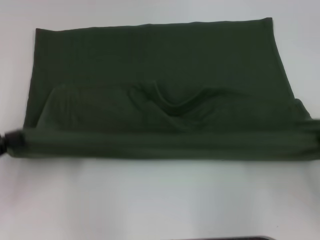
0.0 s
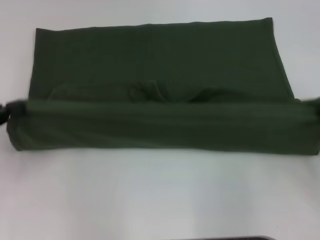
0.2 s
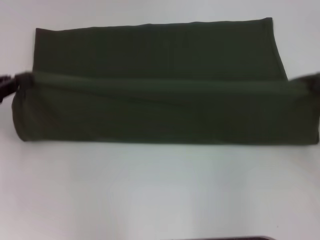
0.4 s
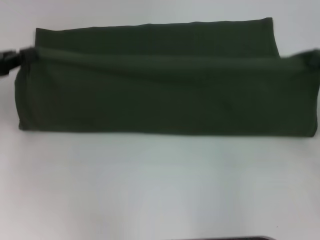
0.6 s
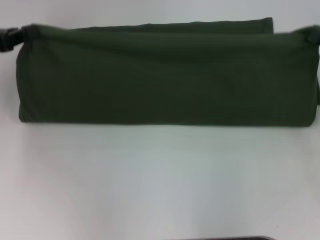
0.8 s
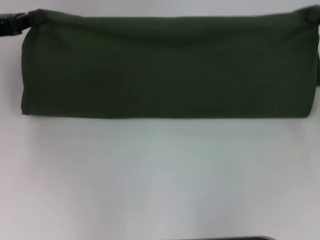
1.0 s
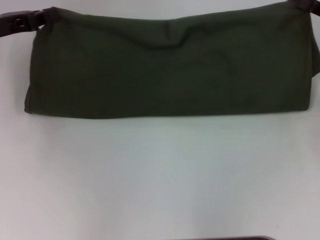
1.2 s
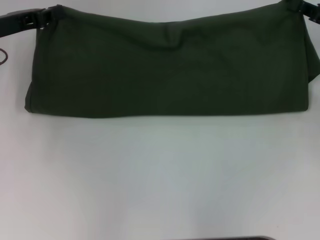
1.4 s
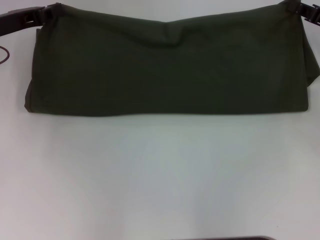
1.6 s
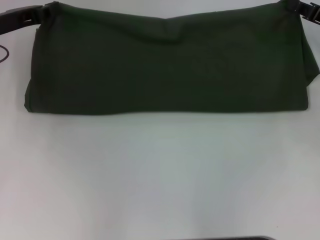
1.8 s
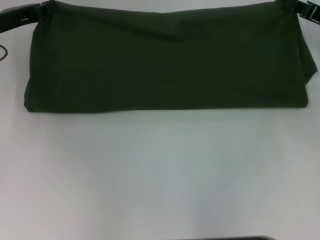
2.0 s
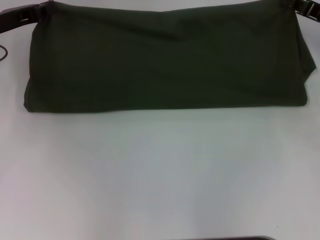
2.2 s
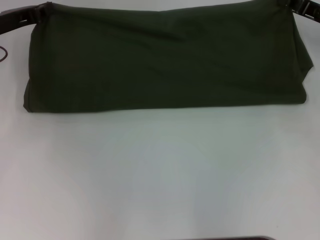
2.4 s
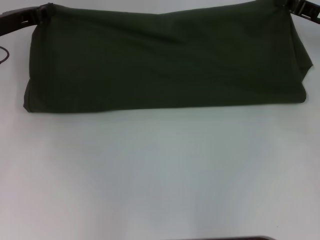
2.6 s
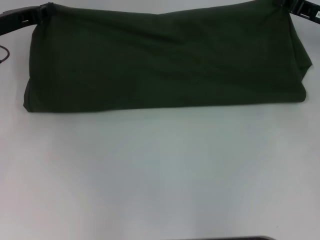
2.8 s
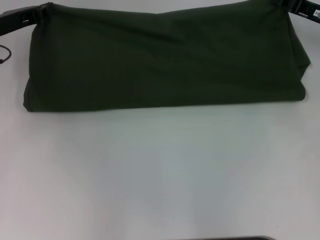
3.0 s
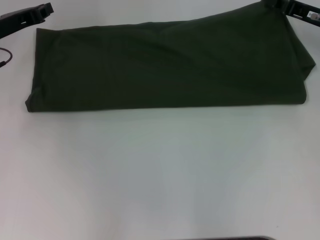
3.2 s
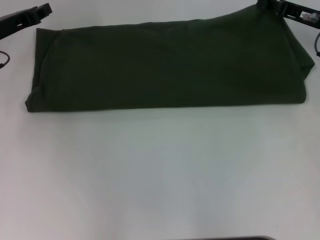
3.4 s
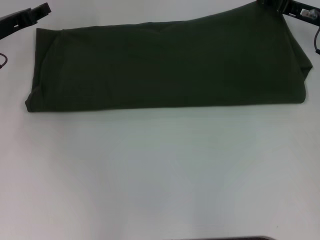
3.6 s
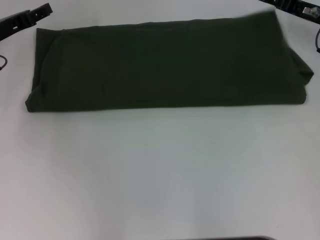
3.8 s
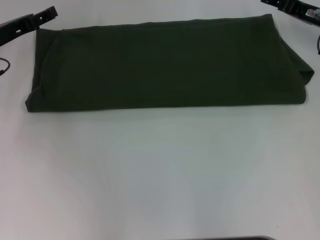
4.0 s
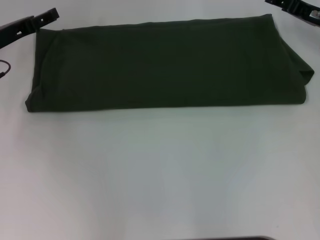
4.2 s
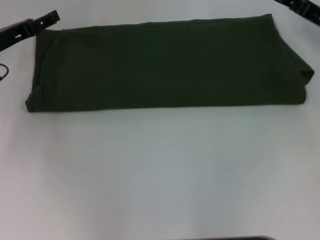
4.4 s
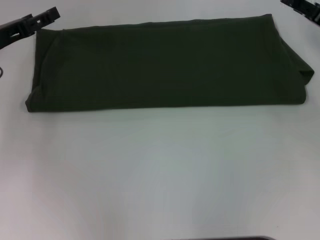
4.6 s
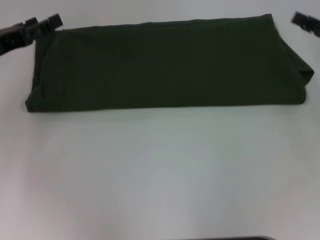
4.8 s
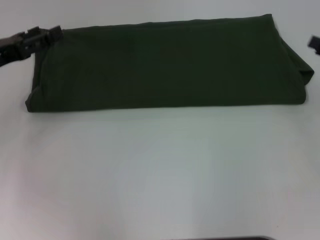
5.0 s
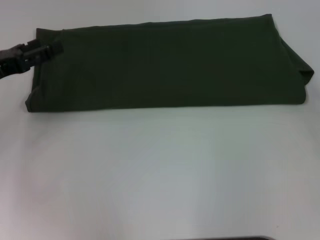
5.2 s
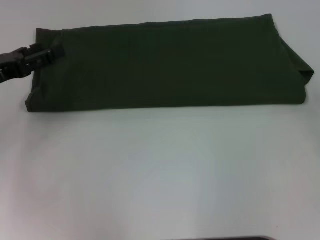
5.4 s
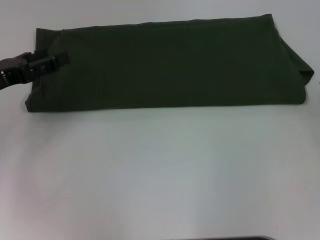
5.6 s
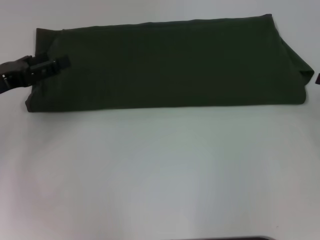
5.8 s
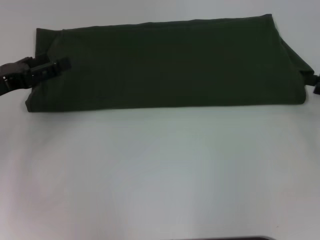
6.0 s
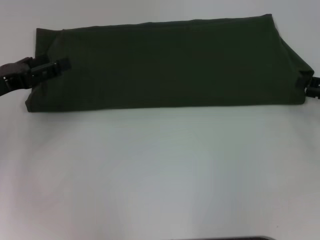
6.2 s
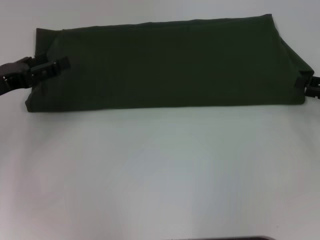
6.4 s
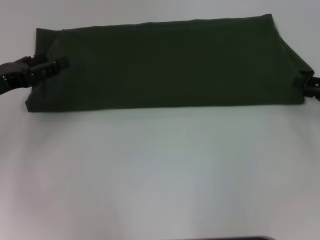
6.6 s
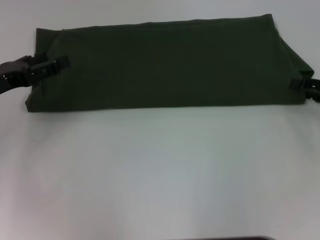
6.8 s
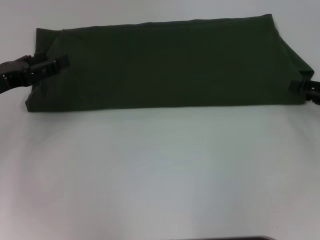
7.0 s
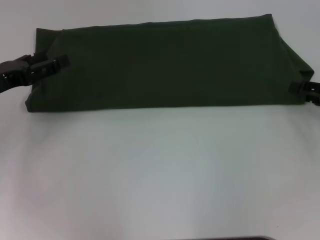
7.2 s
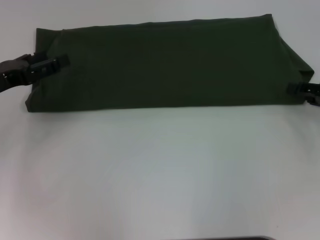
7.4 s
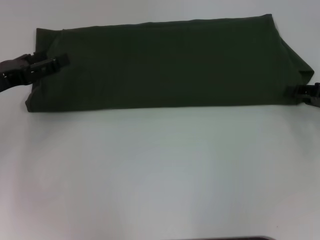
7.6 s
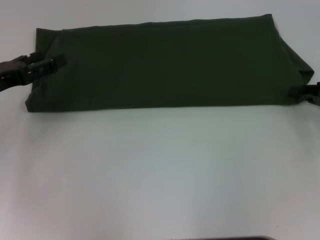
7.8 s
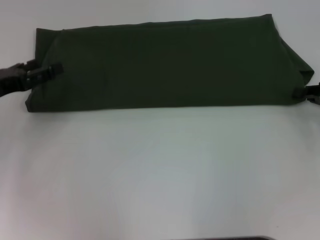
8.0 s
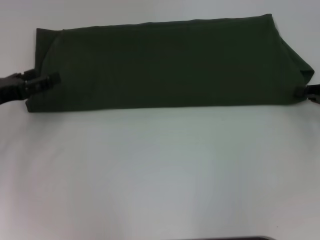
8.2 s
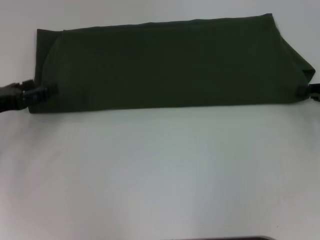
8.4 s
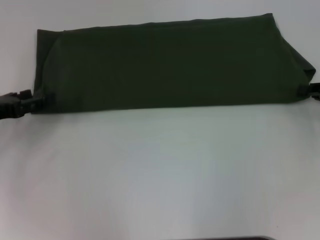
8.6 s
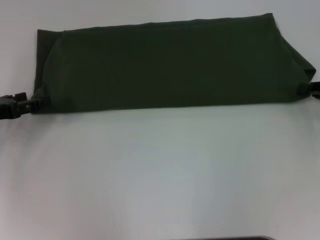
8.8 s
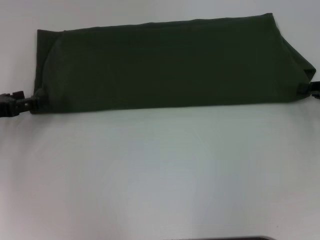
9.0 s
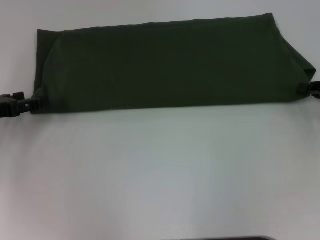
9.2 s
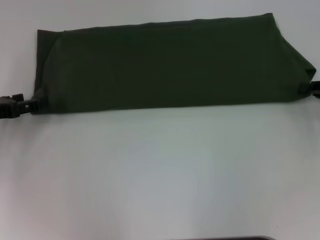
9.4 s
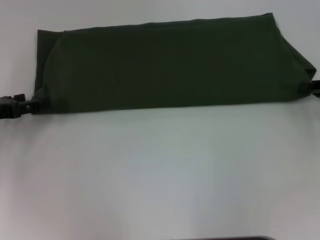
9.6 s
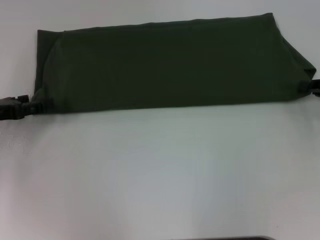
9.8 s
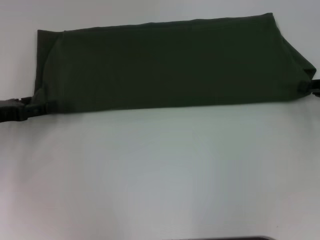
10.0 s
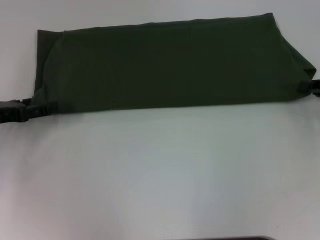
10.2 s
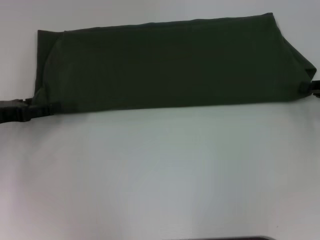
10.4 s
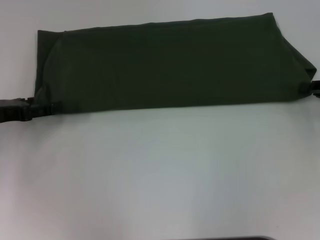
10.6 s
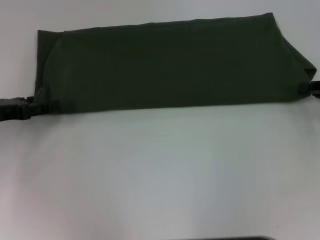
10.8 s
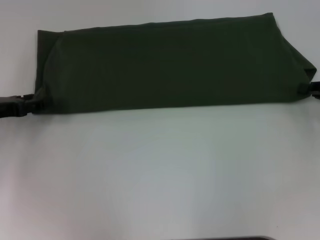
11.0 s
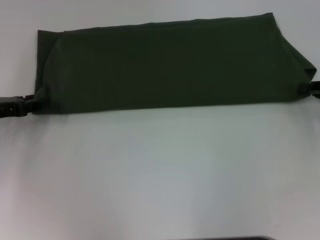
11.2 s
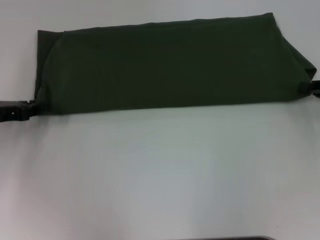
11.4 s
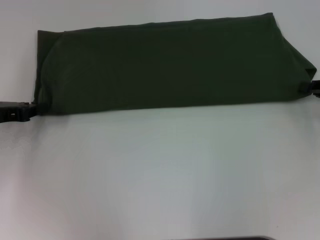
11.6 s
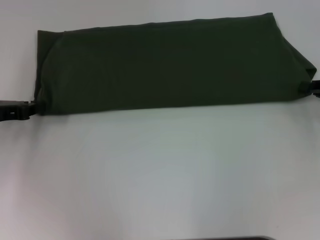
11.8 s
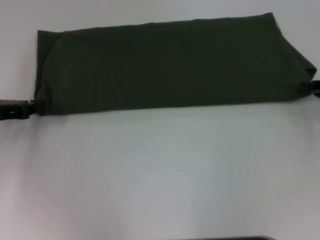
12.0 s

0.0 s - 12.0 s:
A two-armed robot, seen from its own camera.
Step, 0.0 s - 3.2 s: Fold the clothes with your left hand.
Step, 3.4 s - 3.8 s: Fold the clothes with your right hand.
0.0 s - 1.6 s: The right gripper goes about 20 cm forward; the left gripper heads forward and to the right, covering approximately 20 cm.
1.6 s - 3.0 s: The grippers move only a little.
3.0 s - 4.4 s: The right gripper opens its fingers; the left gripper opens up.
4.4 s - 6.0 s: The left gripper is displaced backward by roughly 10 cm; the right gripper moves backward and to the right, some 15 cm.
6.0 s - 7.6 s: The grippers make only small movements.
7.6 s - 9.0 s: The right gripper closes.
9.0 s - 10.4 s: The grippers stay close to where they were, moving slightly.

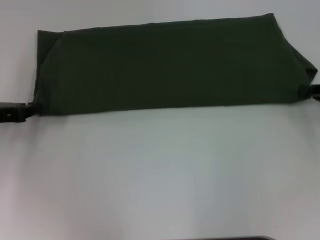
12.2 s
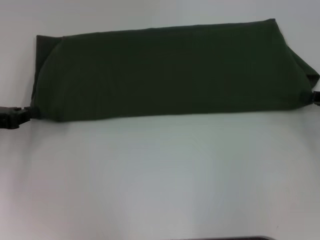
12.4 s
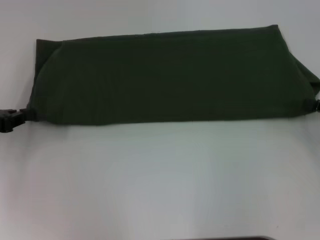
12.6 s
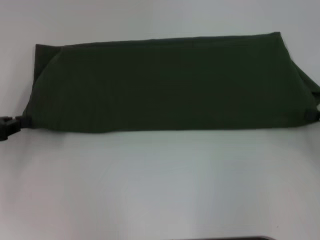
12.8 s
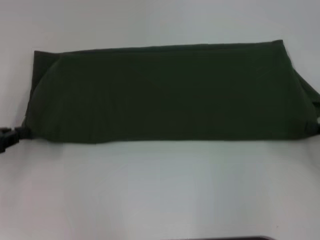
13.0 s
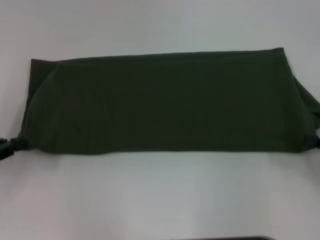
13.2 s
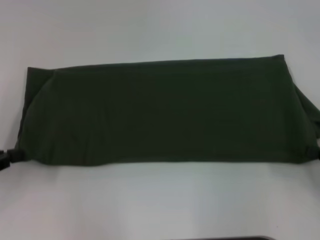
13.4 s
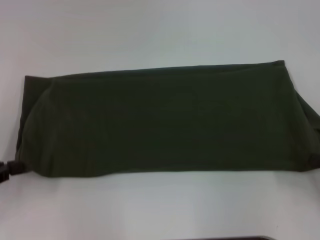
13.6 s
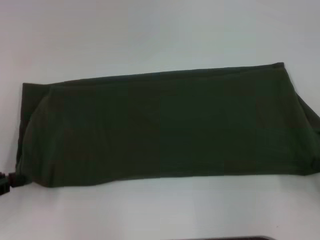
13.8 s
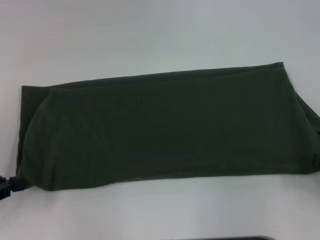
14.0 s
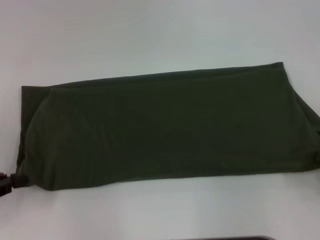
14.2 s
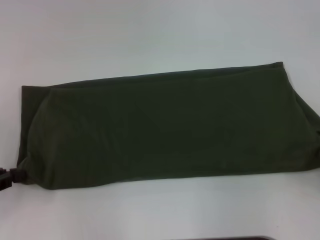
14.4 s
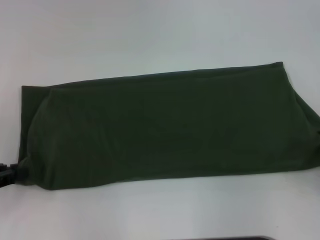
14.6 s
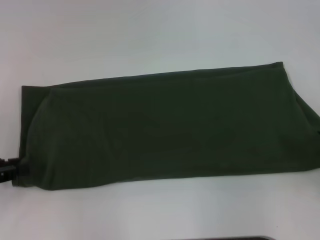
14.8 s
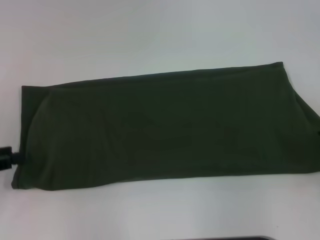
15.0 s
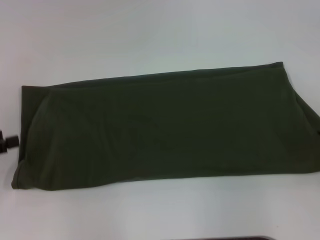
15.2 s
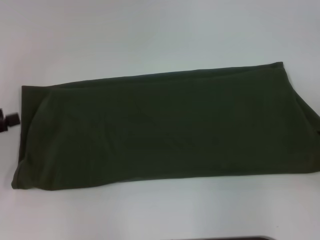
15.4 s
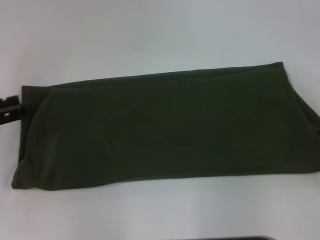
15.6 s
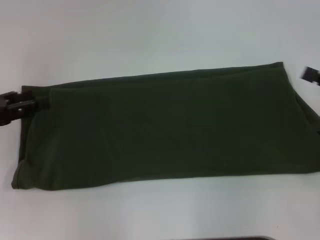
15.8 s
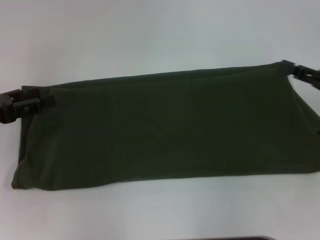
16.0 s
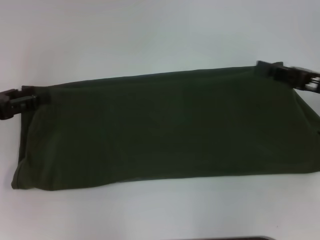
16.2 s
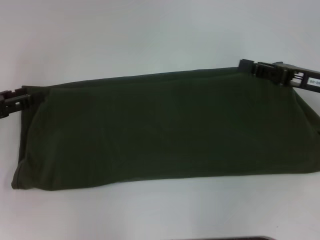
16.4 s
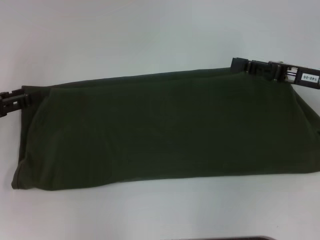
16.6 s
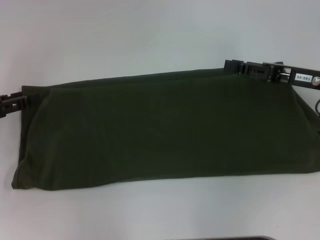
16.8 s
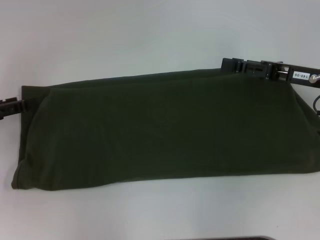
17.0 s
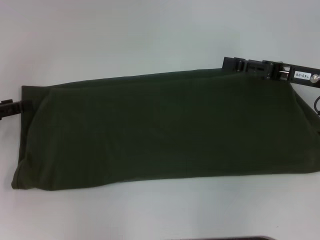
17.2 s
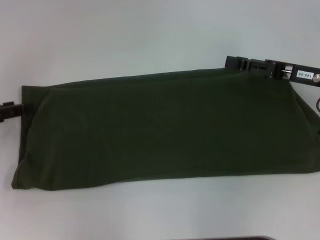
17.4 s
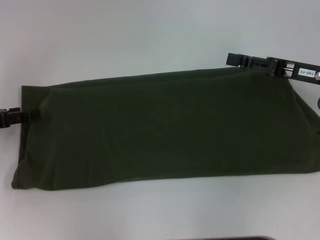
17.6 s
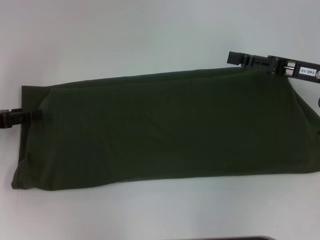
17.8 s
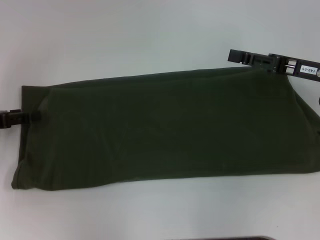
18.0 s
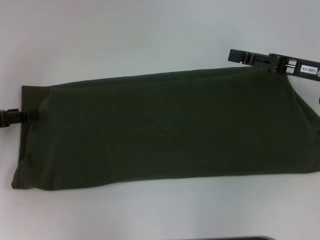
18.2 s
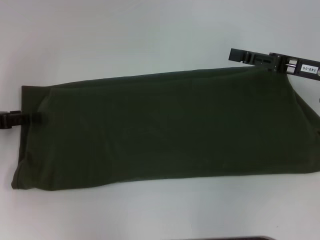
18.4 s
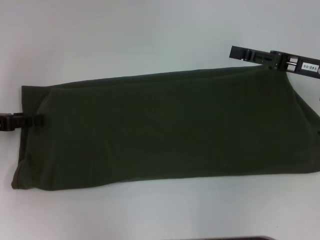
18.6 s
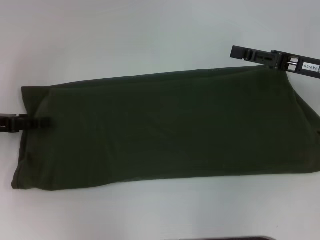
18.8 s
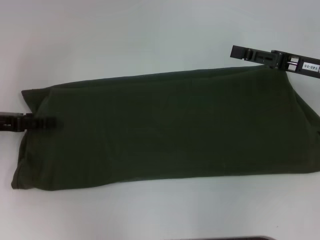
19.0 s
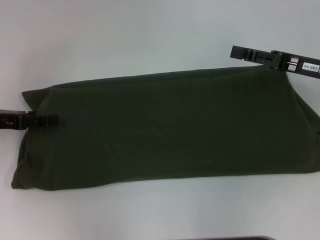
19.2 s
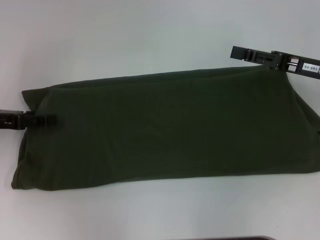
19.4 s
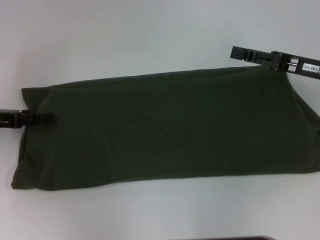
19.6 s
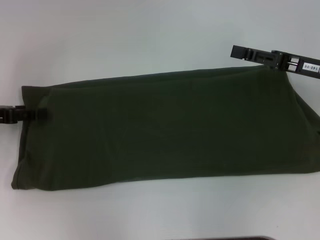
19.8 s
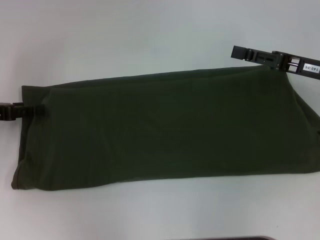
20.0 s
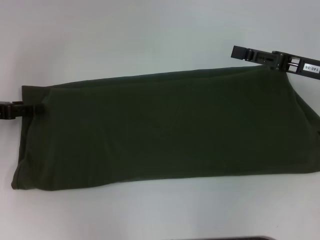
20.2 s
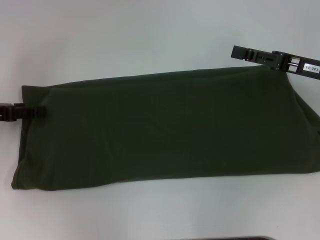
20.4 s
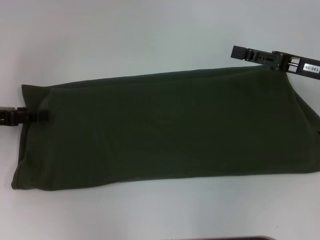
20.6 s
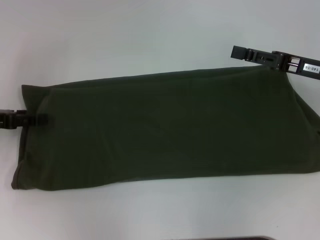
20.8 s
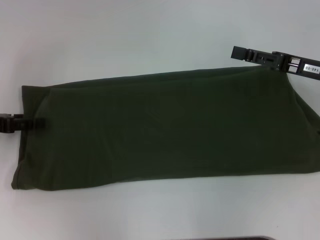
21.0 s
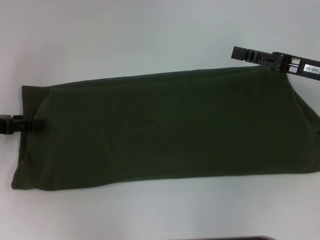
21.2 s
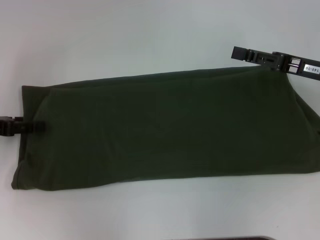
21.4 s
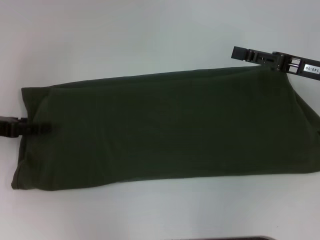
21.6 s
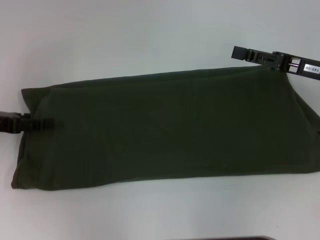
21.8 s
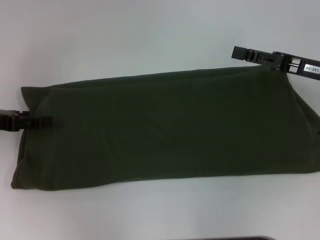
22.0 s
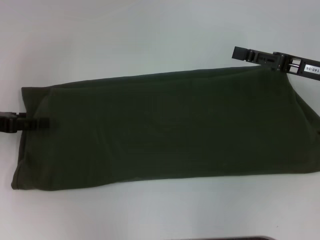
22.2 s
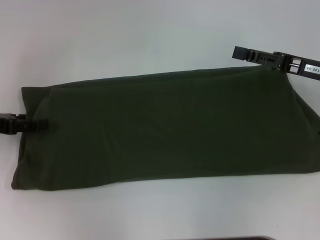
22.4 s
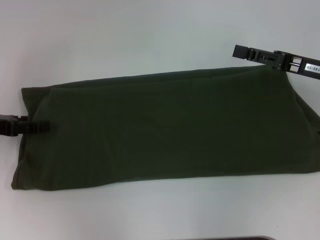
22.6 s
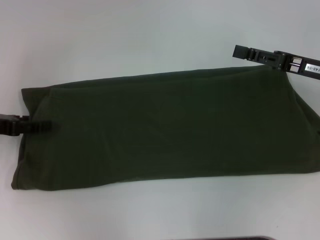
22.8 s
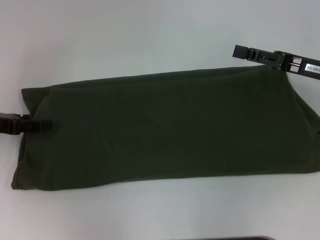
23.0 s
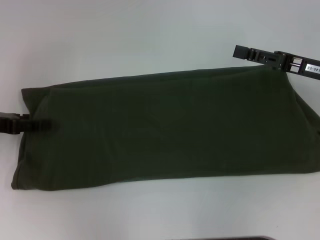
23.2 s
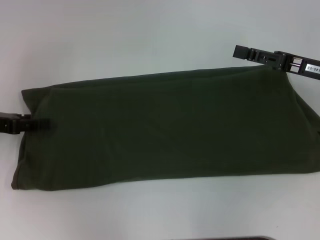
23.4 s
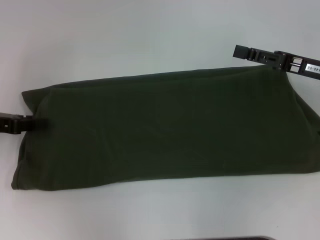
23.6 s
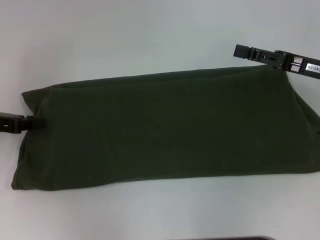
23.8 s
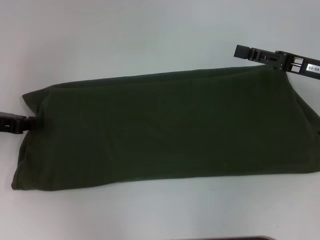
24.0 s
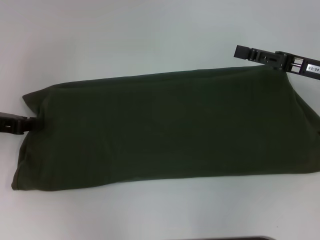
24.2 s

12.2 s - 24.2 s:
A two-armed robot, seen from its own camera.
Step, 12.2 s - 14.8 s: Pull the clothes with your left hand.
Step, 12.2 s - 14.8 s: Pull the clothes with your right hand.
12.2 s - 13.8 s: Both grippers travel together backward, some 10 cm.
13.8 s - 15.2 s: The right gripper opens up. Meanwhile the left gripper opens.
15.2 s - 16.6 s: The left gripper moves forward, roughly 5 cm. Meanwhile the right gripper goes about 20 cm forward and to the left, and closes up.
16.6 s - 18.2 s: The right gripper opens its fingers.
18.2 s - 19.8 s: The grippers move only a little.
19.8 s - 21.2 s: The two grippers keep their place.
21.2 s - 22.6 s: The grippers stay close to where they were, moving slightly.
22.6 s - 24.2 s: The left gripper closes up.
